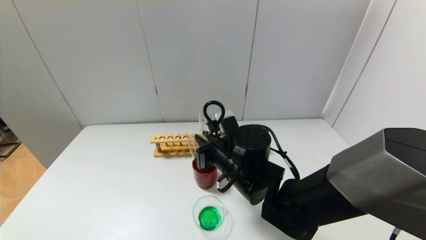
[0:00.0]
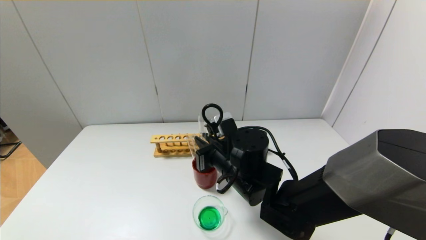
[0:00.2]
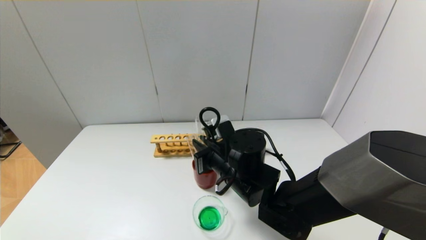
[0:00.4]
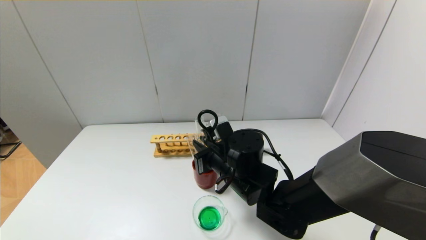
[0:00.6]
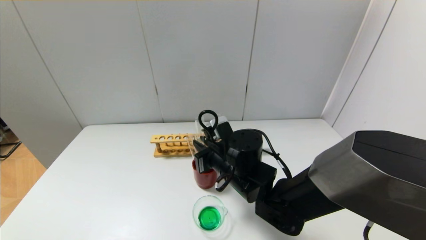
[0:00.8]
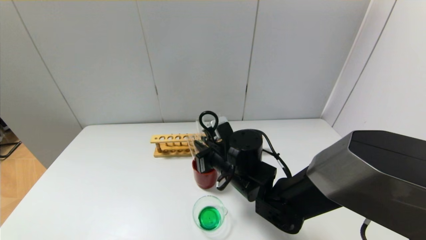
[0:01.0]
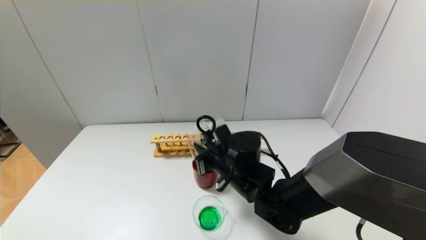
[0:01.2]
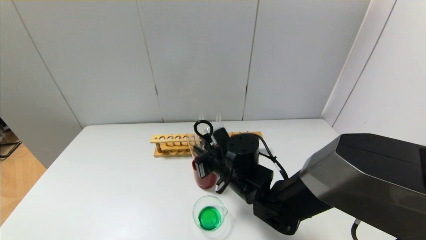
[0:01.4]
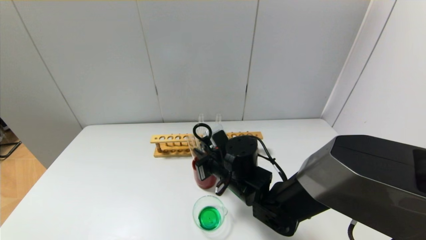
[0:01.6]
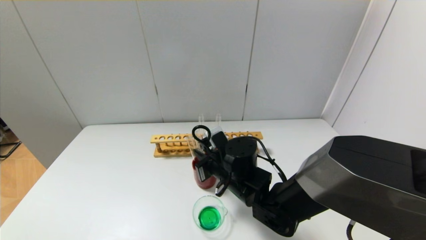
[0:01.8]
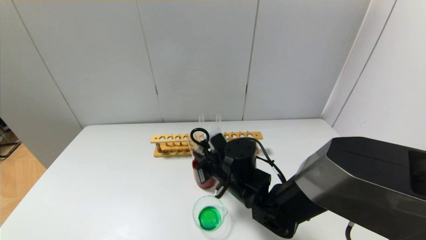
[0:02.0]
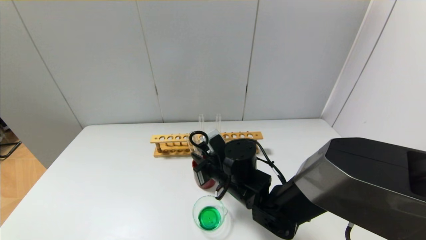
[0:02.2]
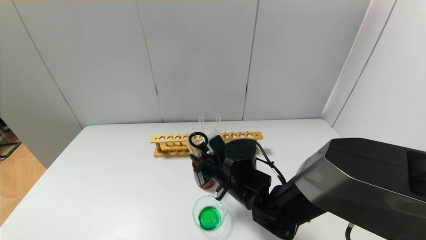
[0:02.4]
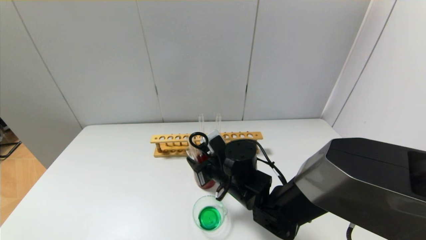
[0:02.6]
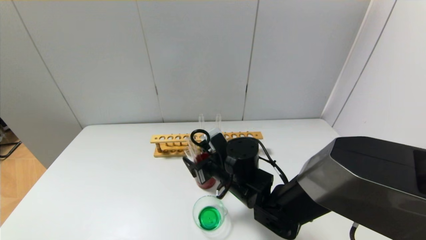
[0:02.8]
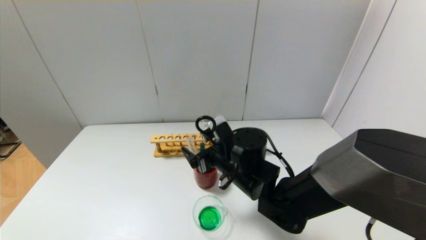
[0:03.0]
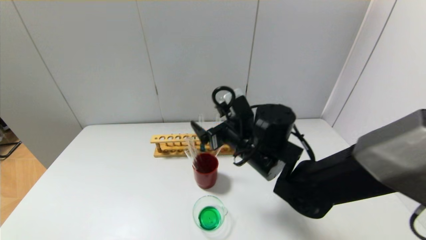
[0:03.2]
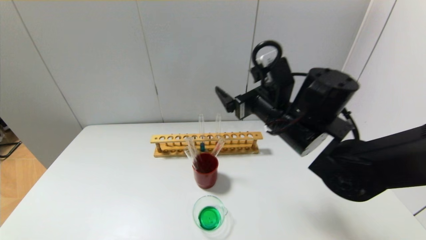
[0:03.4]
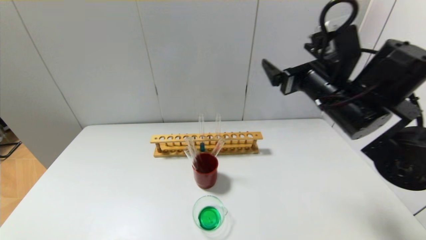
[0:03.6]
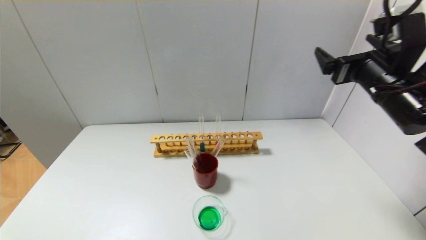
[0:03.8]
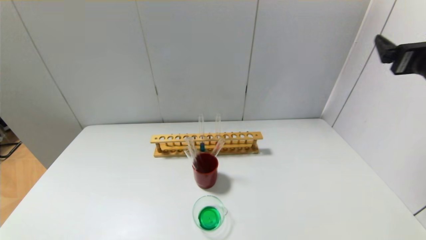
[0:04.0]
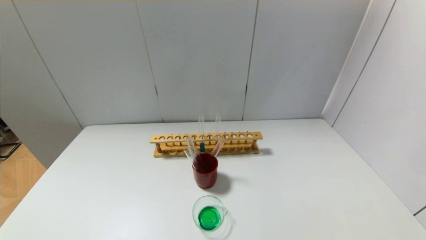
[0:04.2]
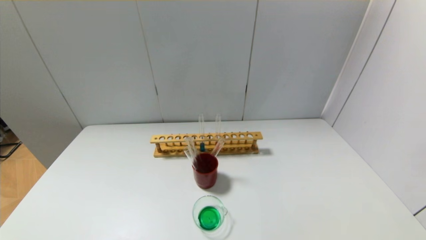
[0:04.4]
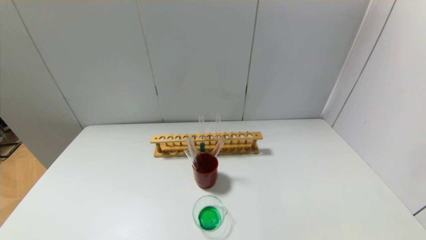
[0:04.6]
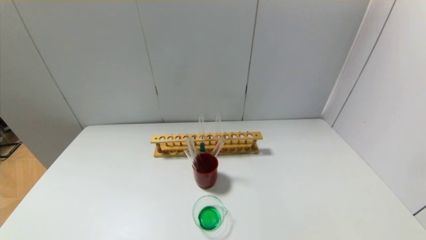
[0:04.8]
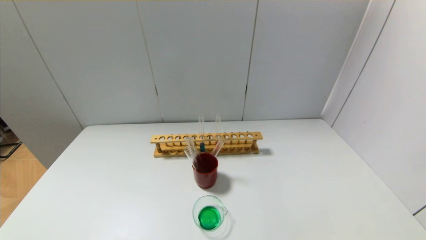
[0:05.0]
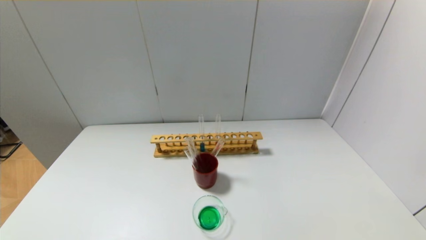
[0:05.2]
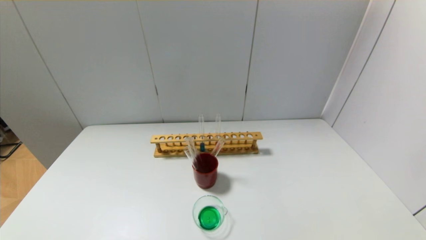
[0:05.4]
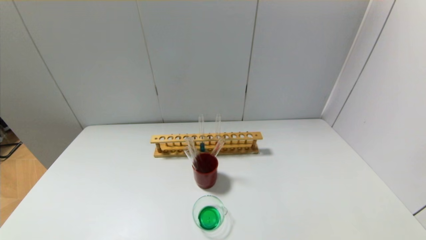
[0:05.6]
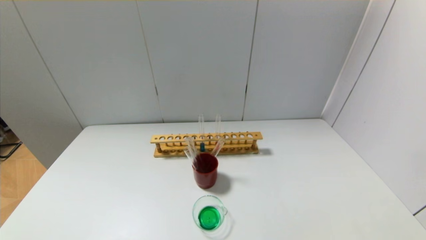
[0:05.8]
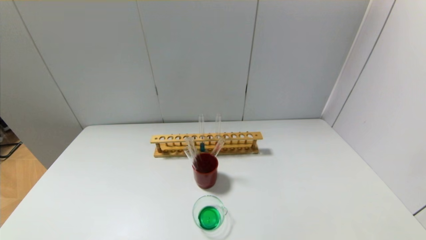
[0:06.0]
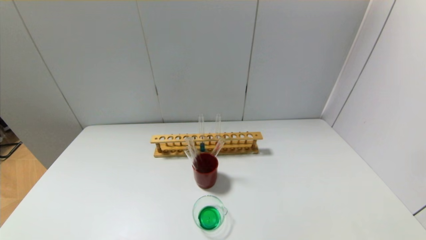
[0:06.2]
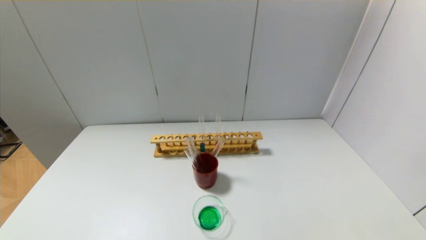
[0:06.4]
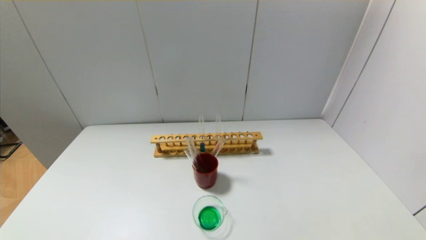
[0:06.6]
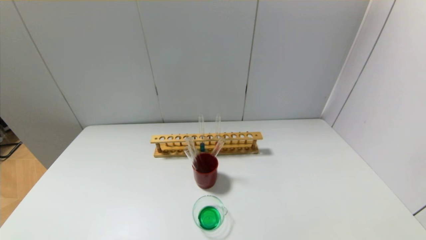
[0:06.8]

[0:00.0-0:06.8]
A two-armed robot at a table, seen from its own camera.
Step, 0:00.0 to 0:02.6: Place the test tube into the brown cup with the right gripper.
0:00.0 to 0:01.4: The grippers stay close to where they were, moving slightly.
0:01.4 to 0:02.8: The right gripper opens.
0:02.8 to 0:04.0: The right gripper goes approximately 35 cm to the right and upward.
0:04.0 to 0:05.4: The right gripper travels backward and downward by some 30 cm.
